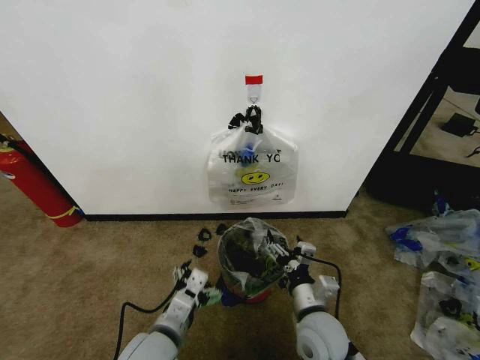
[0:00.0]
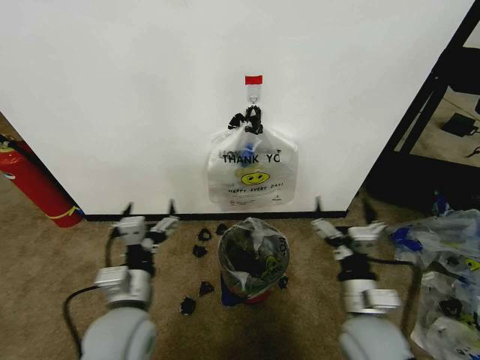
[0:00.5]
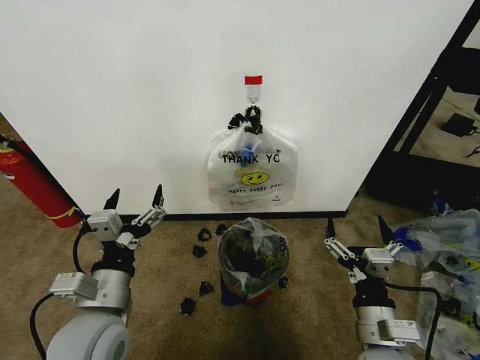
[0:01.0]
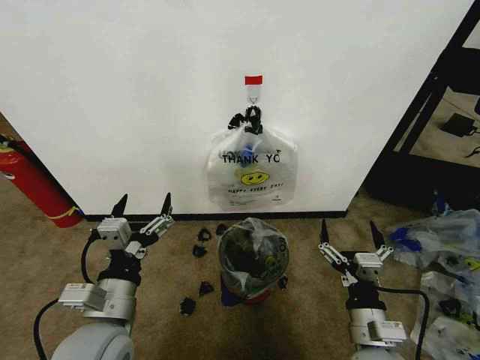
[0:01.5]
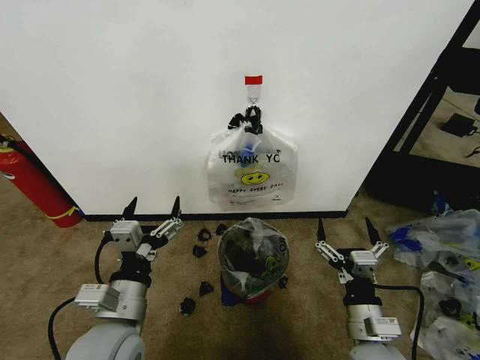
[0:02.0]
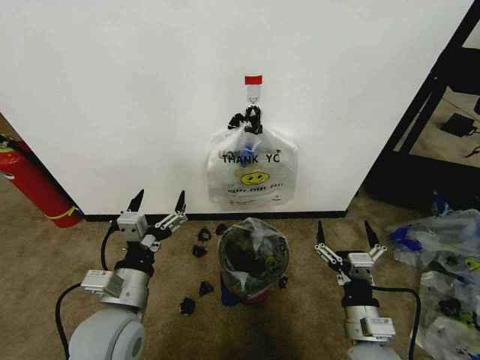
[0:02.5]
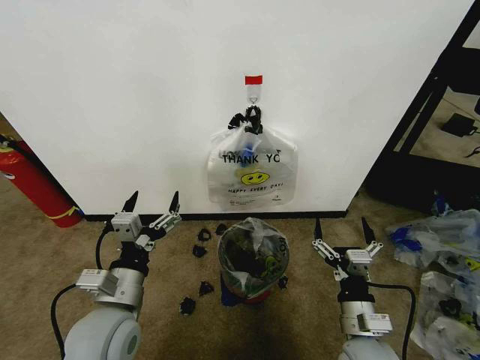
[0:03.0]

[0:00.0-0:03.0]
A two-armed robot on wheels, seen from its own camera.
Task of the whole recording: Pick up the garbage bag from the wall and place it over the trash bin.
0:00.0 to 0:01.5: The right gripper shifts approximately 10 cm backward and to the right. The left gripper heads upward and to the left, covering some 10 cm.
0:01.5 to 0:03.0: There are only small adjustments of the grippers.

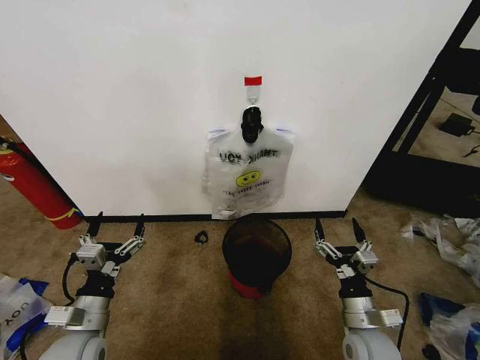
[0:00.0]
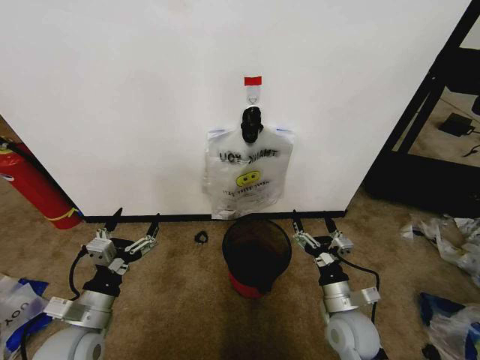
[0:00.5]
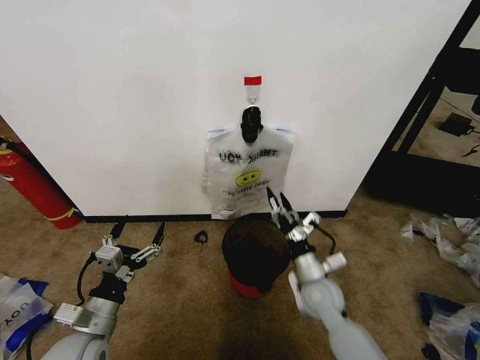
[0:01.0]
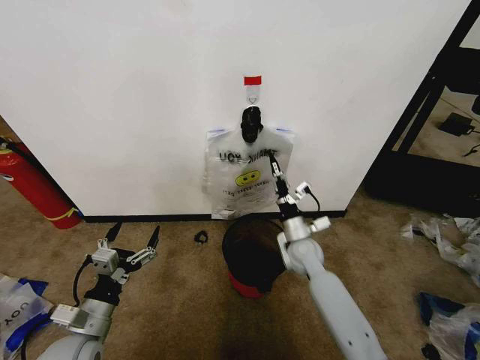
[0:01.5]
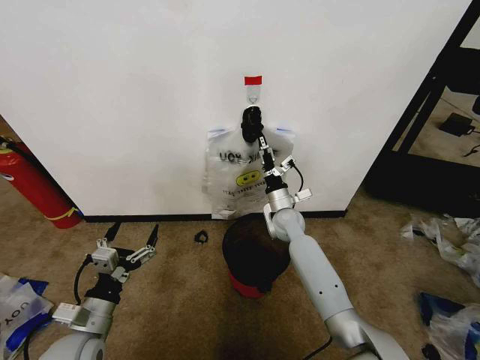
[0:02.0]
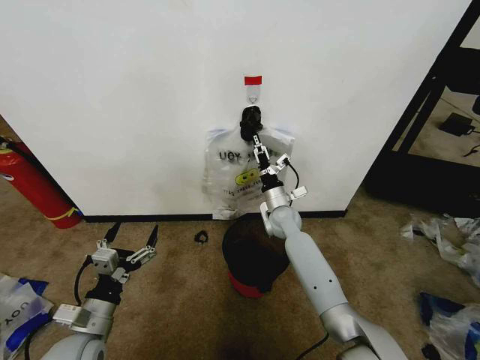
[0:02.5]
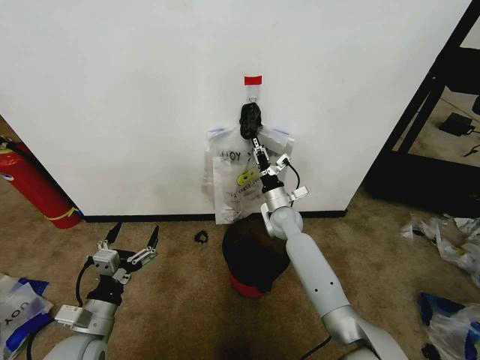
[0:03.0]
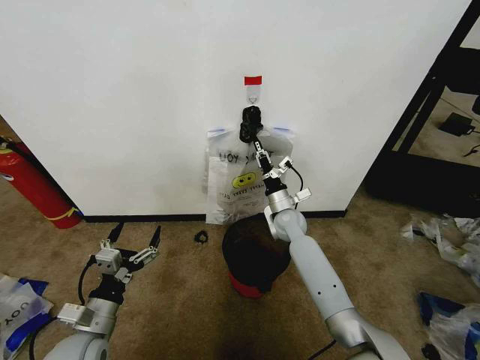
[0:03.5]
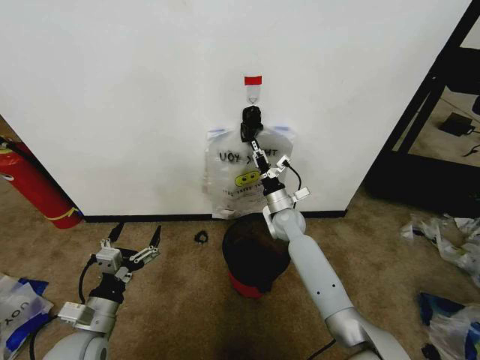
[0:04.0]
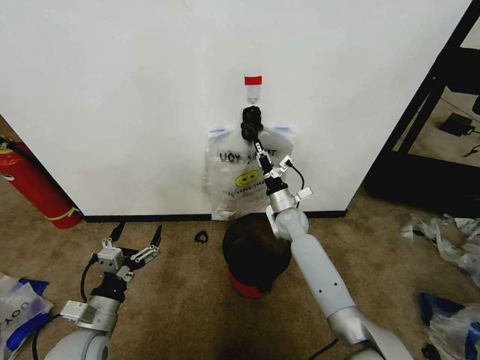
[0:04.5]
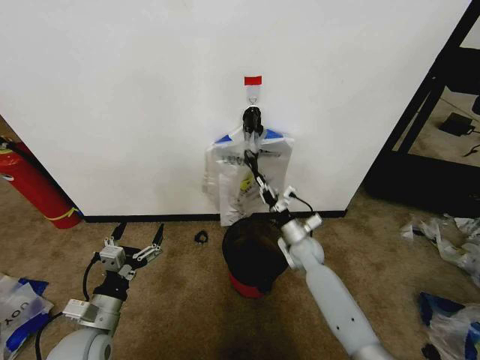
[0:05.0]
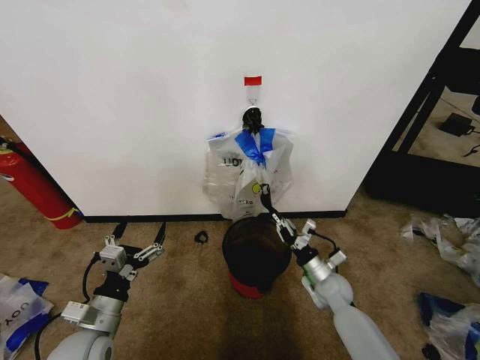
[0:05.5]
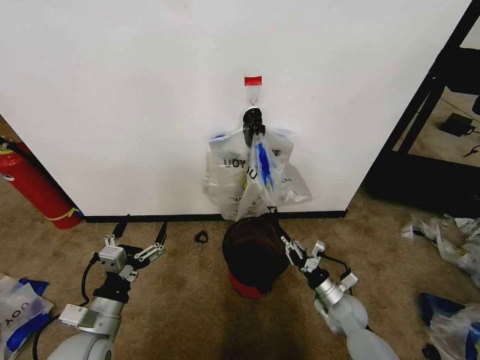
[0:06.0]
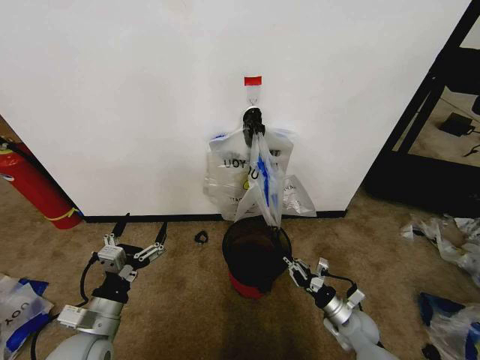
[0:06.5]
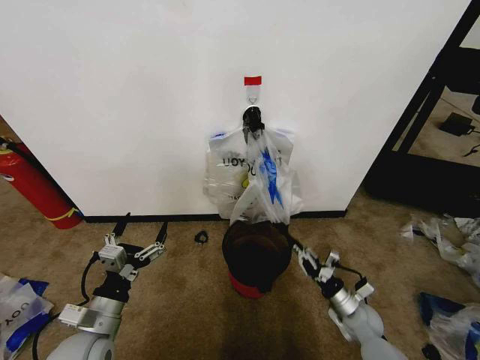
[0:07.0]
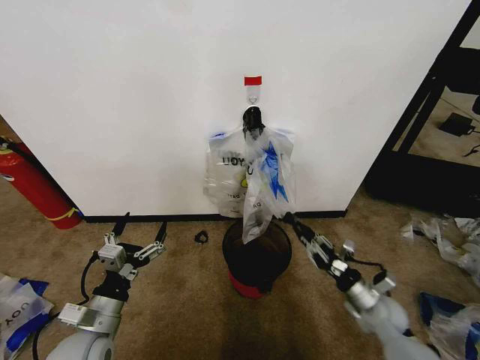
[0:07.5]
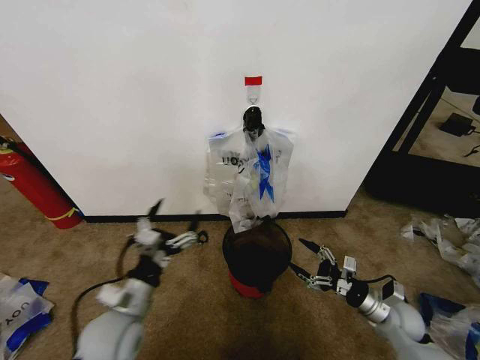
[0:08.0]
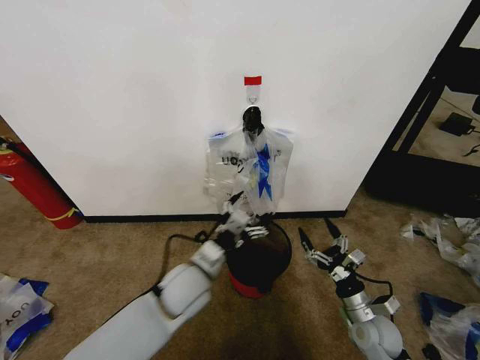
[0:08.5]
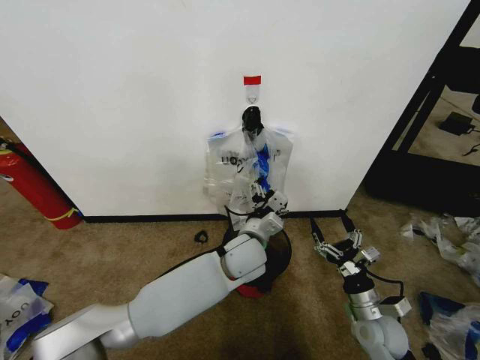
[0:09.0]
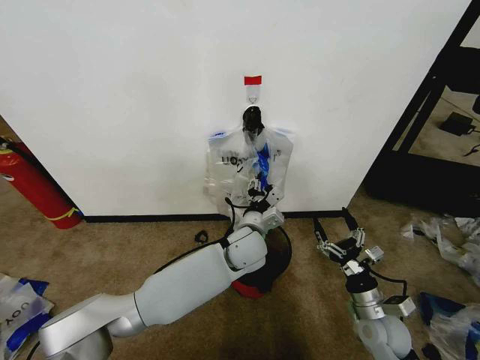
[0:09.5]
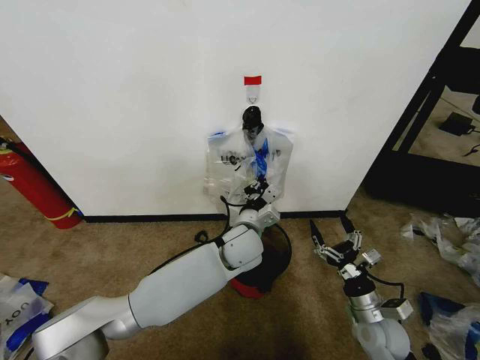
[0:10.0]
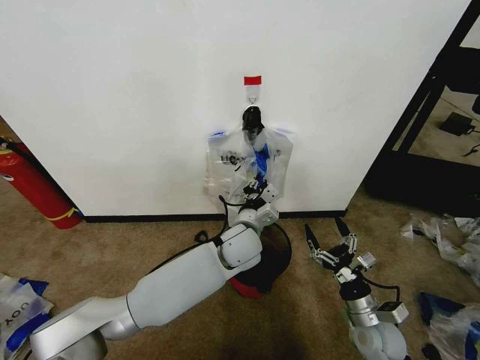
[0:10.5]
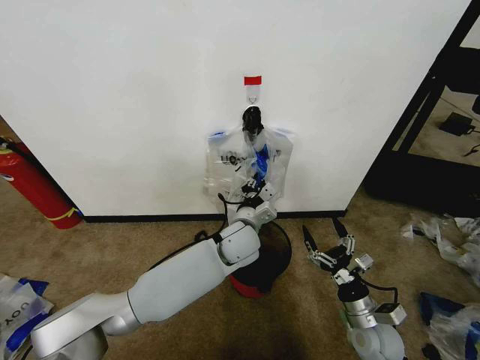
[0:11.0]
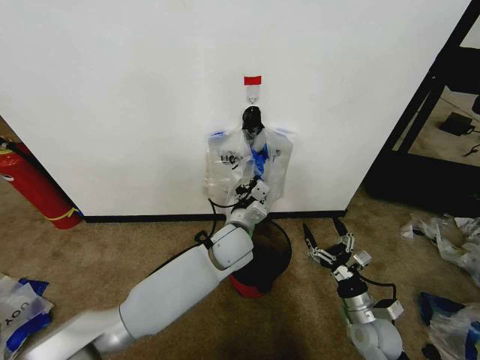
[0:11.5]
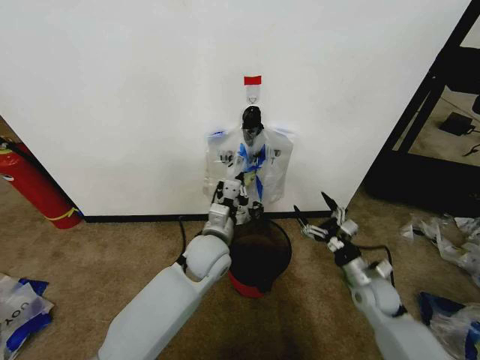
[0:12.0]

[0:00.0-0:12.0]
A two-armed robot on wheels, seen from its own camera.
Task of the whole recording: Pick up the garbage bag from the wall and place it over the trash bin.
0:02.0 to 0:04.0: The right gripper closes its fingers.
0:04.0 to 0:06.0: The right gripper goes about 30 cm backward, to the right and downward.
0:06.0 to 0:08.0: The right gripper is displaced to the right and upward by approximately 10 cm, and opens its fingers. Meanwhile the left gripper ends up some 5 cm from where it was.
0:08.0 to 0:10.0: The left gripper is displaced to the right and forward by about 30 cm, and closes. The right gripper goes some 5 cm to the left.
0:10.0 to 0:12.0: The right gripper is displaced forward by roughly 10 cm, while the left gripper heads to the left, covering roughly 5 cm.

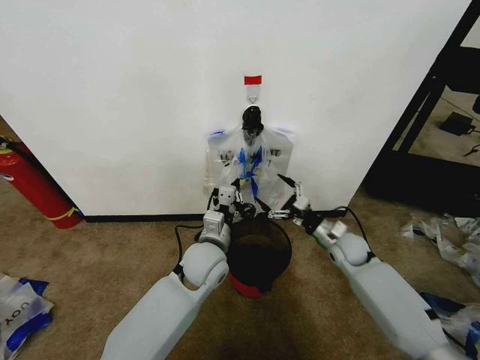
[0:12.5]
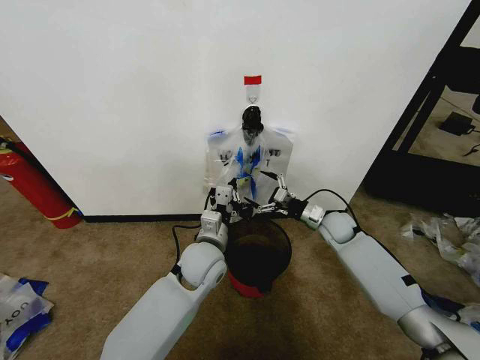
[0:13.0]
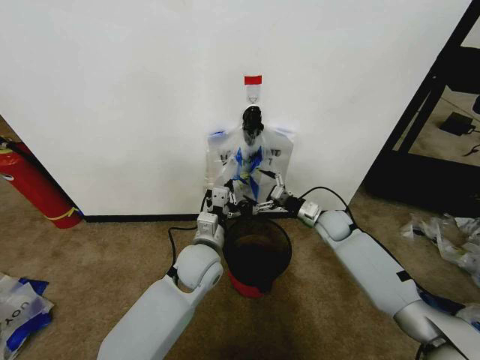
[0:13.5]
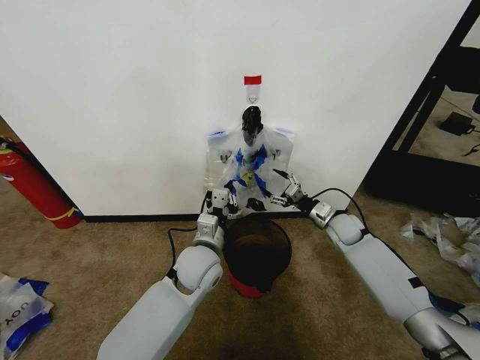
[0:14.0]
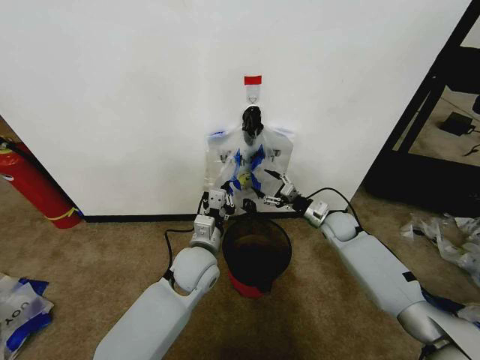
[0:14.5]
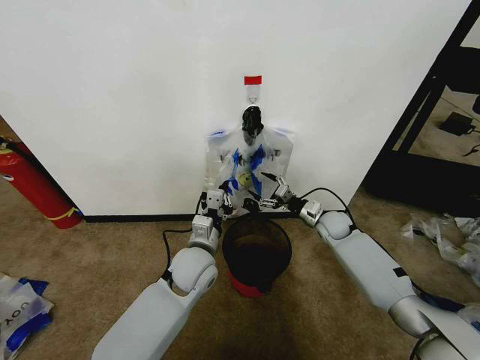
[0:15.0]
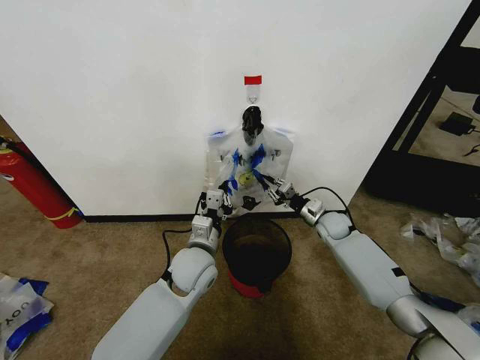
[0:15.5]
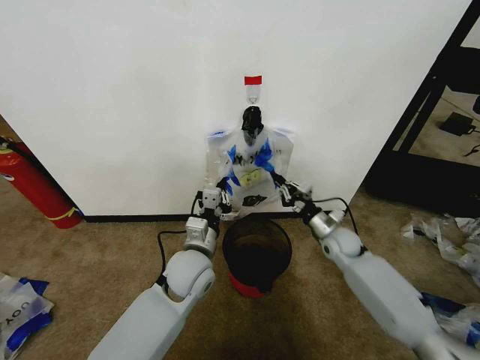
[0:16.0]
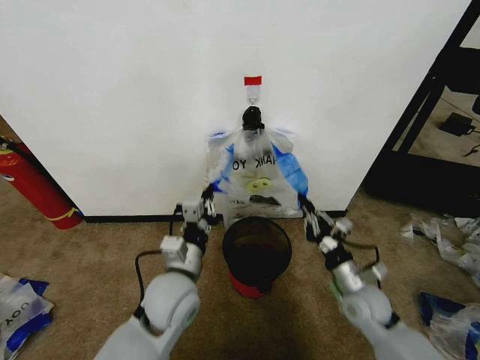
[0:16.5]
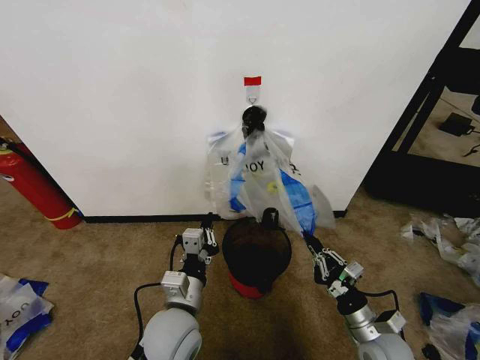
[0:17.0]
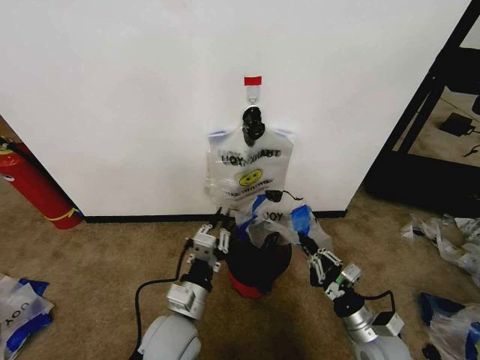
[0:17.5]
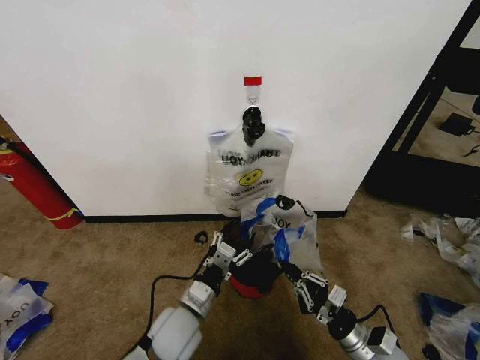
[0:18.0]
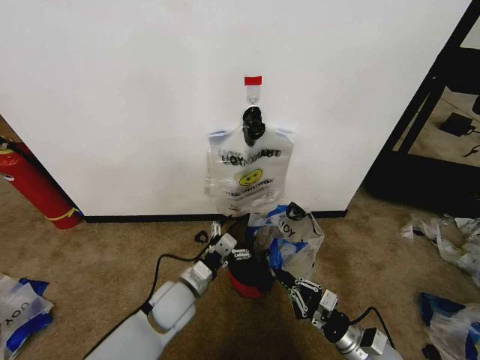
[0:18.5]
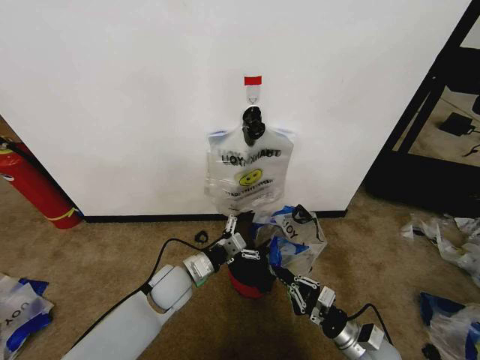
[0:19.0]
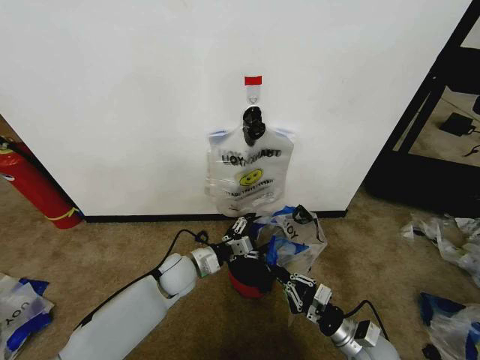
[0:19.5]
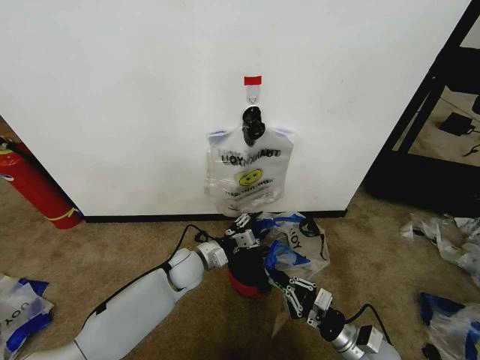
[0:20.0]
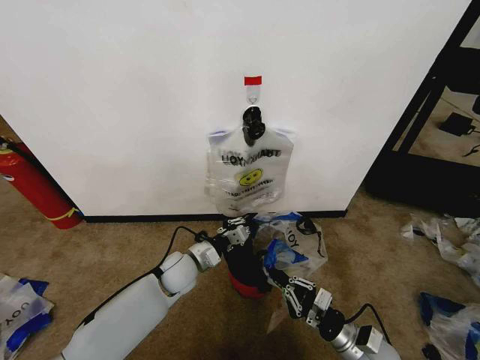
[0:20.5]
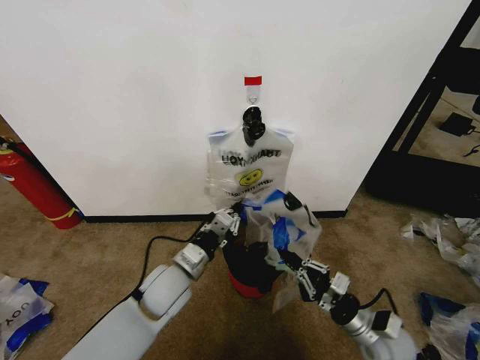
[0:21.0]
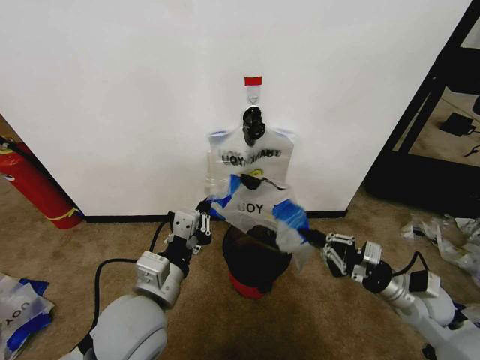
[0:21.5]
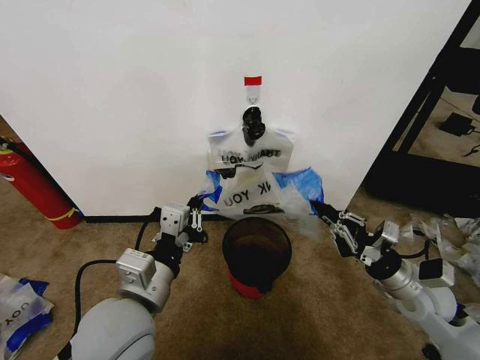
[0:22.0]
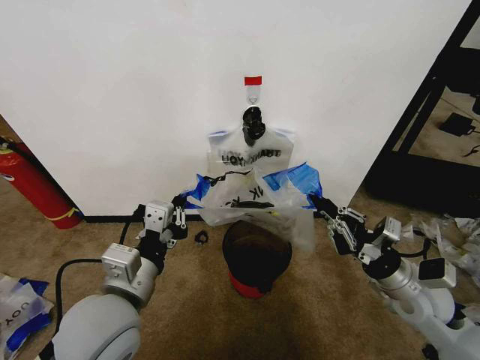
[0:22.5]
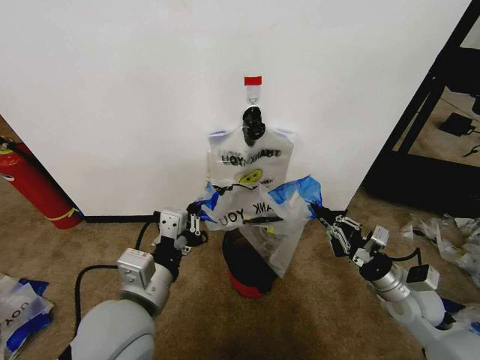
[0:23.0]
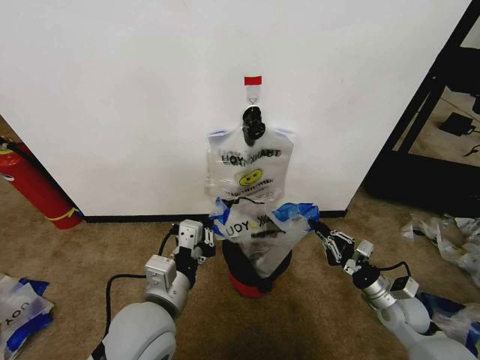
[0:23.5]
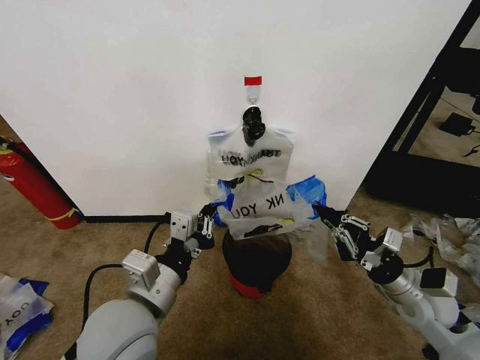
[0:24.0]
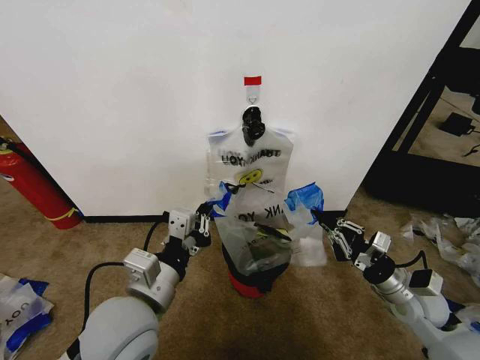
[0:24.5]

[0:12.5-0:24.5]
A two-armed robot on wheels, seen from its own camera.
Task of the whole recording: Pick up the garbage bag from the wall and place it over the trash bin.
0:12.5 to 0:14.5: The right gripper heads forward, covering approximately 5 cm.
0:14.5 to 0:16.5: The right gripper travels backward by about 20 cm, and closes up. Meanwhile the left gripper heads backward, covering roughly 5 cm.
0:16.5 to 0:18.5: The right gripper heads backward and downward, covering approximately 10 cm; the left gripper heads downward, covering some 10 cm, and opens its fingers.
0:18.5 to 0:20.5: The left gripper goes about 10 cm forward, and closes.
0:20.5 to 0:22.5: The left gripper travels upward and backward by roughly 25 cm, while the right gripper heads upward and forward, covering roughly 15 cm.
0:22.5 to 0:24.5: The right gripper is displaced downward by about 5 cm.
